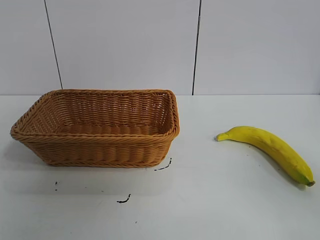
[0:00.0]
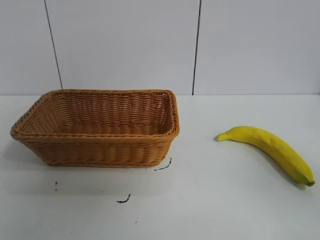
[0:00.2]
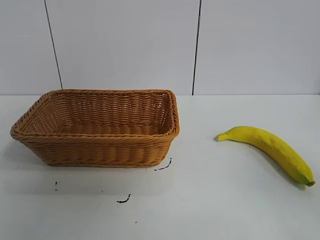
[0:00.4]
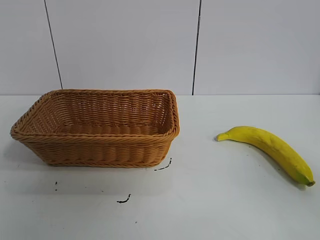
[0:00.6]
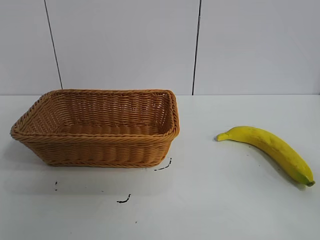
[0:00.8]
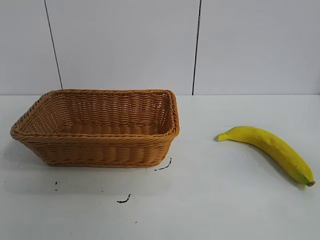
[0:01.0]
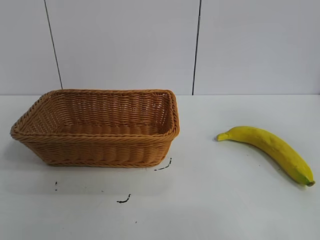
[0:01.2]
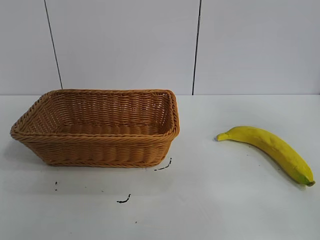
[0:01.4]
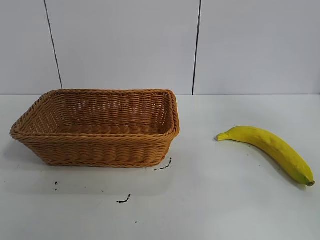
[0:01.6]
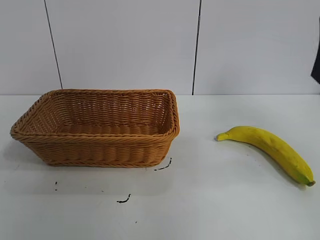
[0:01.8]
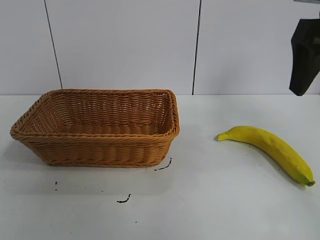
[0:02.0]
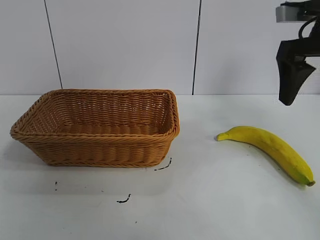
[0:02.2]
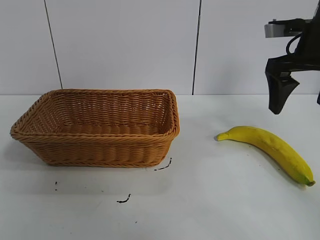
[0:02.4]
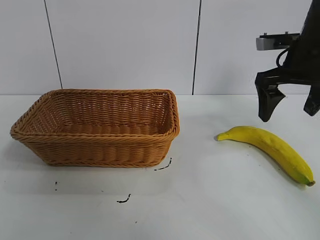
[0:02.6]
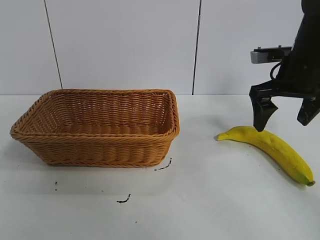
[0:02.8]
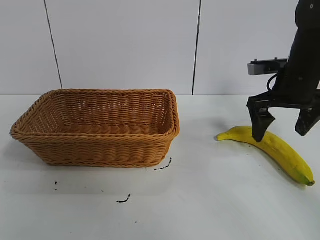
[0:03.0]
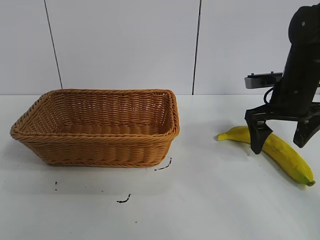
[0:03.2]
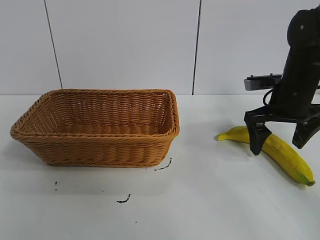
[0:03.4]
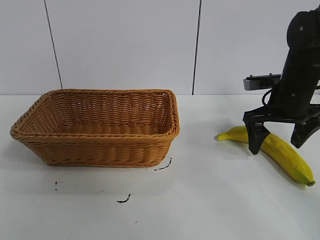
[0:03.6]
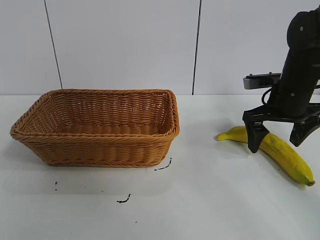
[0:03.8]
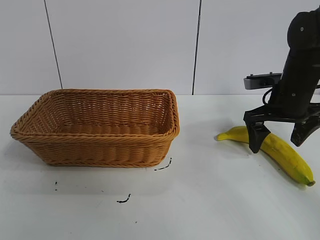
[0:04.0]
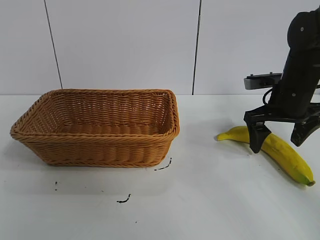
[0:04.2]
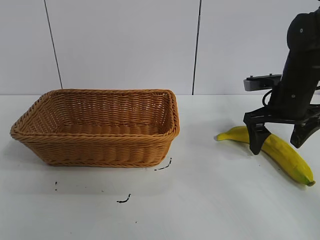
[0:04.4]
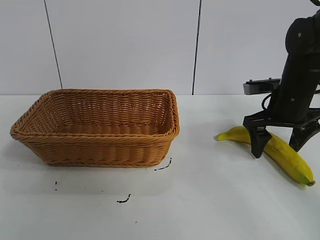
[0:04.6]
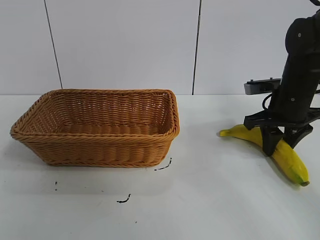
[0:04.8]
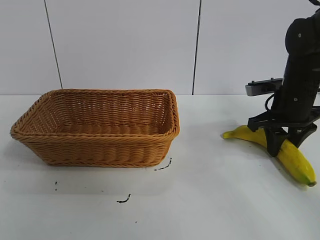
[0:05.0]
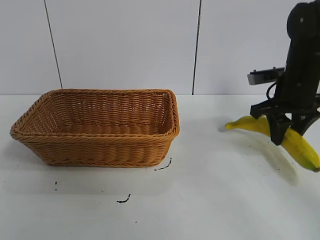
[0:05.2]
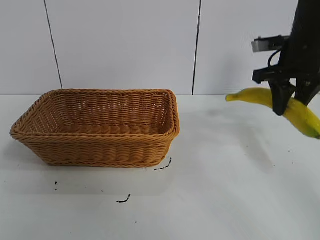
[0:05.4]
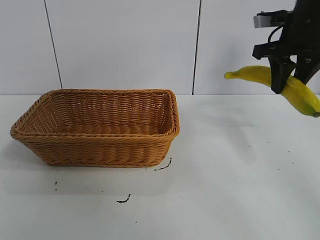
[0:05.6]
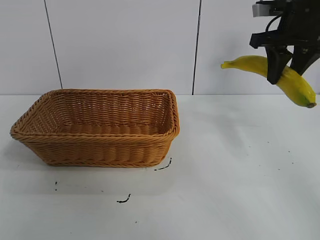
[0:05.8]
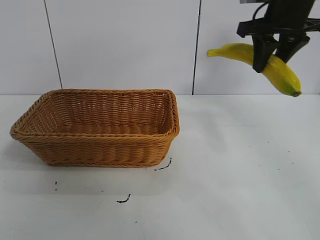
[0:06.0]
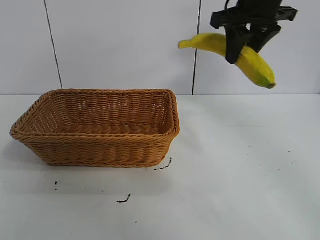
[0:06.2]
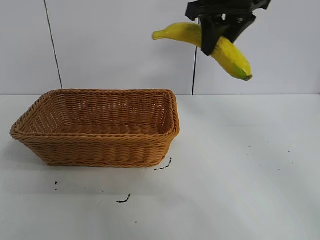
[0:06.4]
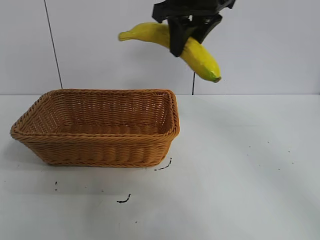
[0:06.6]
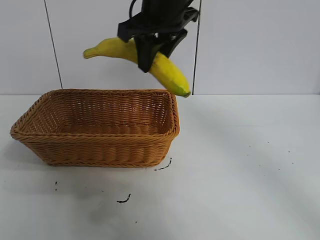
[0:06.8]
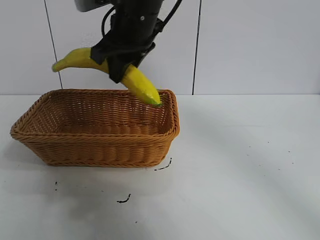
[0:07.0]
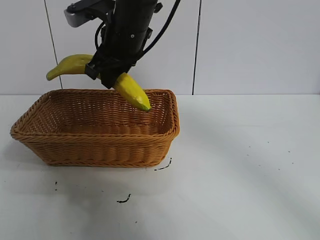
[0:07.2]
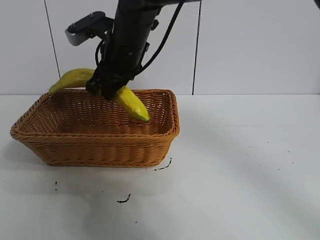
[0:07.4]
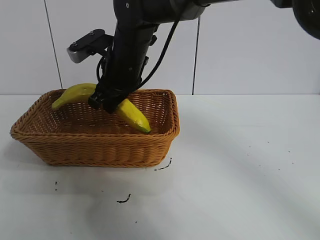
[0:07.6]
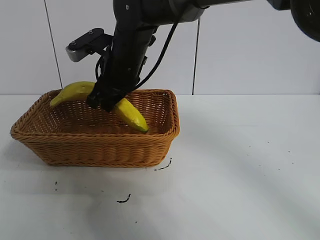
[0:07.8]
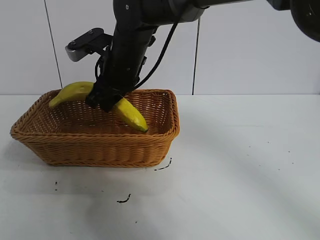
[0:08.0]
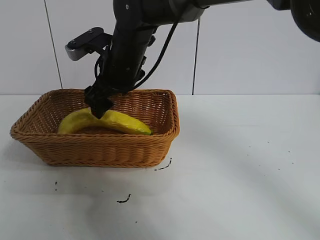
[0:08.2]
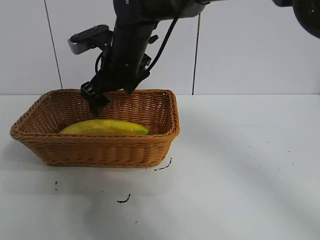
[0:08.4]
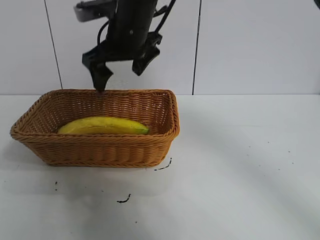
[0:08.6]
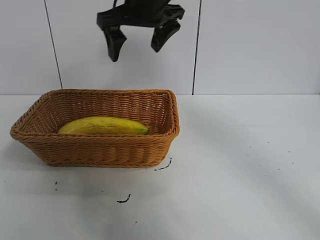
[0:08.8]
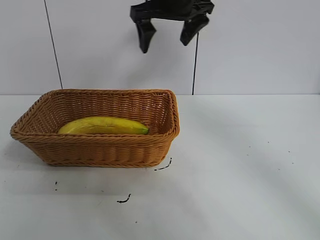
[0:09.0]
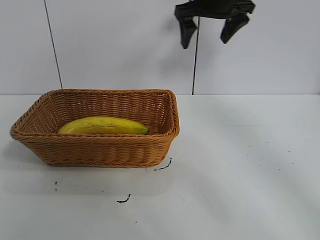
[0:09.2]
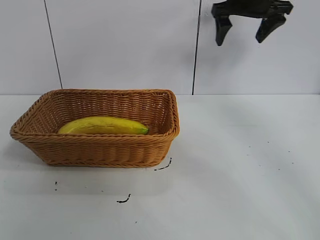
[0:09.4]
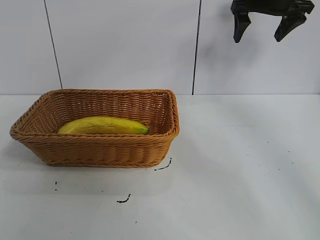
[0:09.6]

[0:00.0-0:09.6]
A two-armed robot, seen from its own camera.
Task of the whole recording: pick up the banana and put it into the basket.
Step, 0:00.8 to 0:04.8: Grasp the banana with right gripper.
Step, 0:05.0 to 0:08.2: Place the banana in the basket with right gripper.
